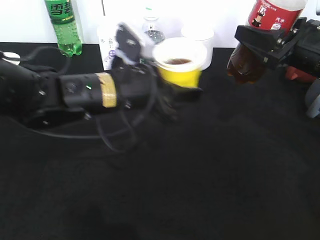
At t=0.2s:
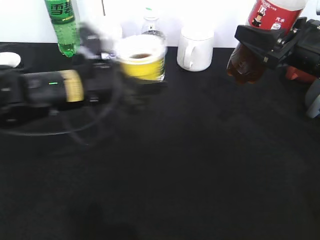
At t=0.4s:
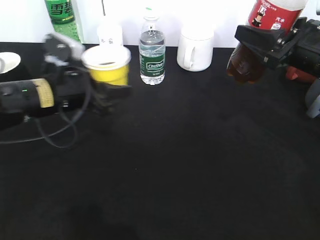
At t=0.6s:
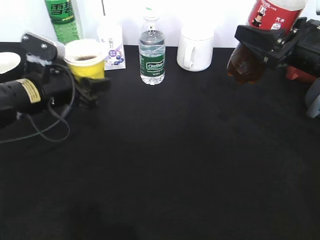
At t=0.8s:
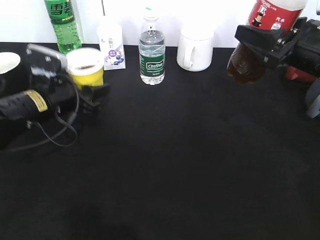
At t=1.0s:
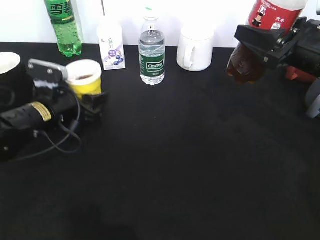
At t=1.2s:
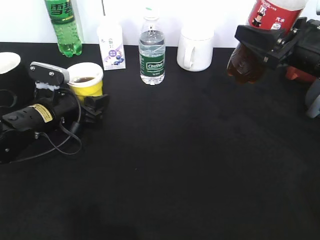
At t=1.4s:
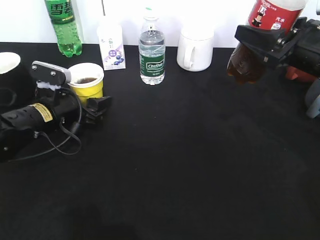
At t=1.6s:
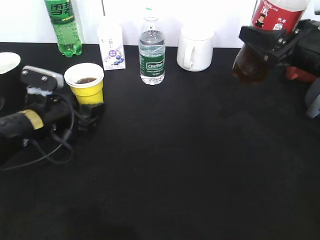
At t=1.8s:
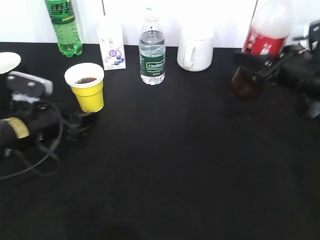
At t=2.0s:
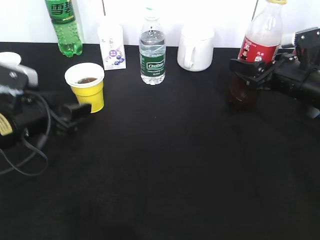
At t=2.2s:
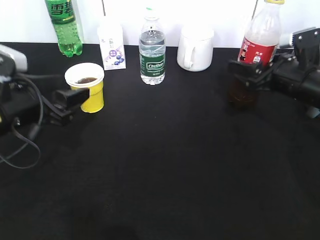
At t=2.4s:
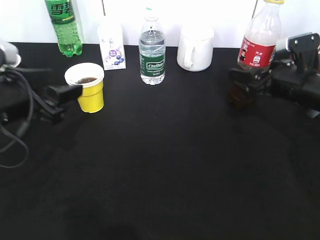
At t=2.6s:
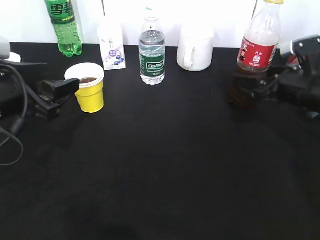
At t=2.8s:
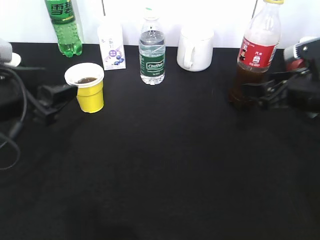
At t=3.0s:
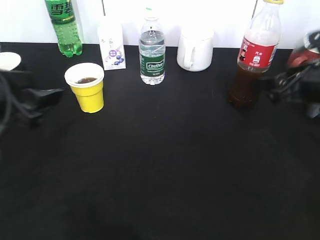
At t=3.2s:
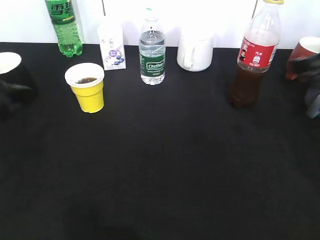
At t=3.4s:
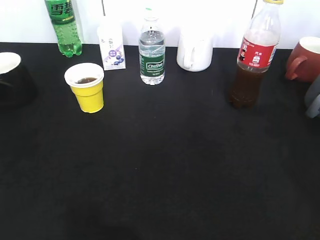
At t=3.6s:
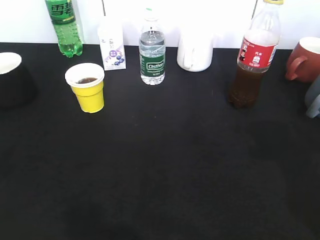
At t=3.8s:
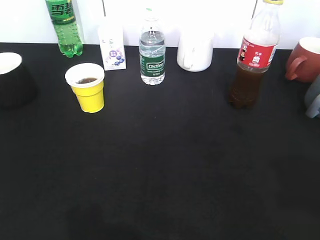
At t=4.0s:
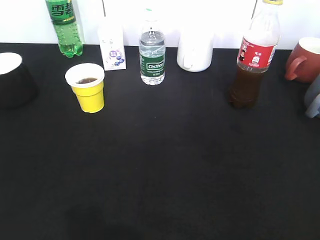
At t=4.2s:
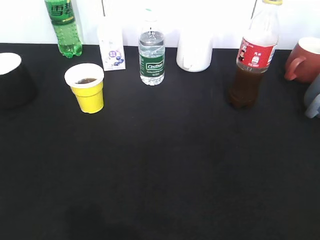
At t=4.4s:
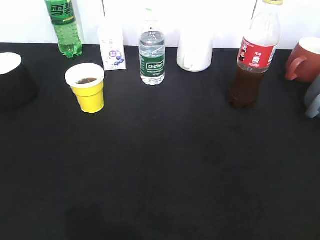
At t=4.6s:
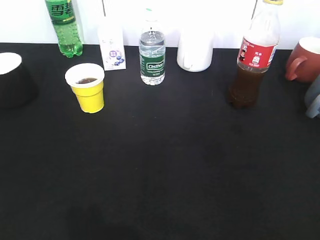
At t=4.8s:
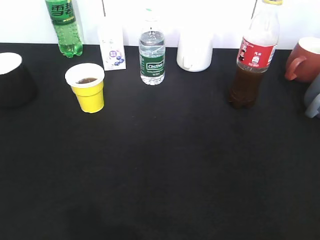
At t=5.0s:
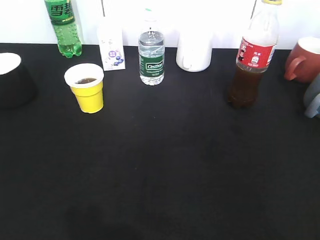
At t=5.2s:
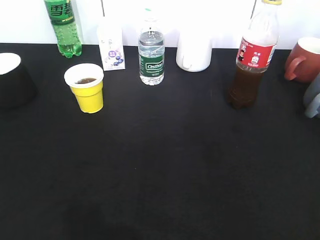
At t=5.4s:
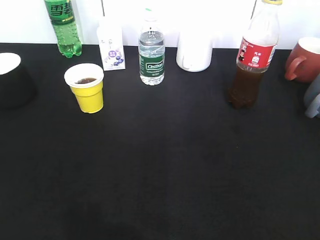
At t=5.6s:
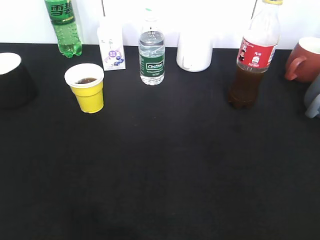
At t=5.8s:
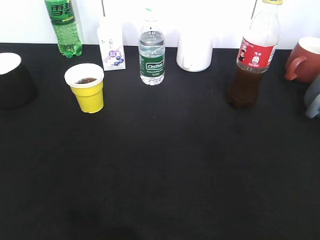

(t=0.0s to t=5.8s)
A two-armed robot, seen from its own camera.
Step, t=0.0s - t=1.6s: Place the yellow paper cup on the table with left gripper.
Step, t=2.0s - t=3.0s: Place the cola bottle on the table with right gripper.
t=0.0s - t=1.4s: The left gripper shifts roughly 15 cm to the left and downward, and opens its fingers.
t=1.4s - t=2.8s: The left gripper travels upward and backward by roughly 15 cm. Meanwhile the right gripper travels downward by roughly 5 cm, and opens.
t=2.8s - t=4.4s: The grippers both shift backward by some 30 cm.
